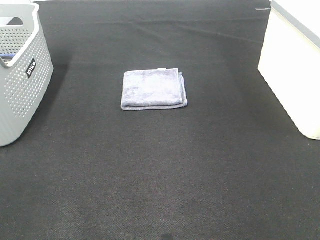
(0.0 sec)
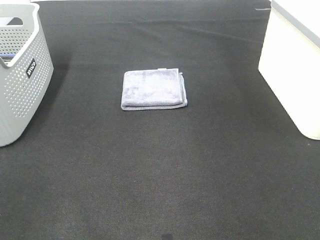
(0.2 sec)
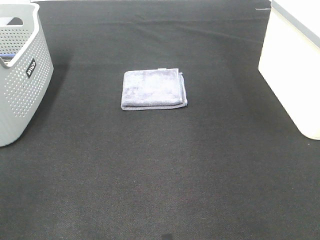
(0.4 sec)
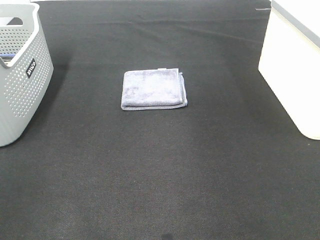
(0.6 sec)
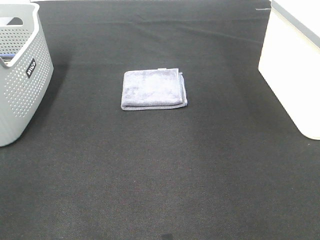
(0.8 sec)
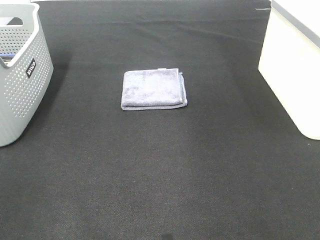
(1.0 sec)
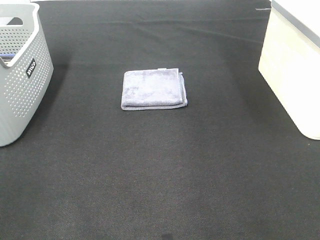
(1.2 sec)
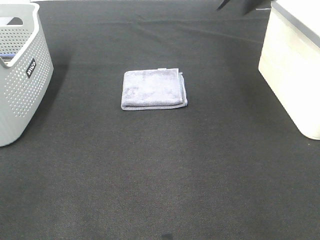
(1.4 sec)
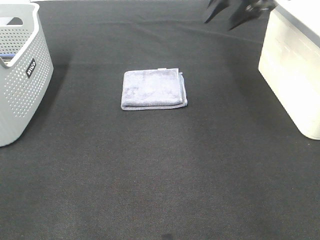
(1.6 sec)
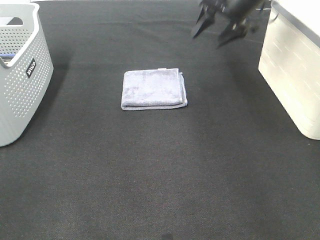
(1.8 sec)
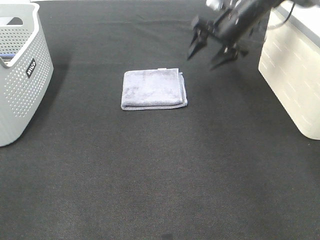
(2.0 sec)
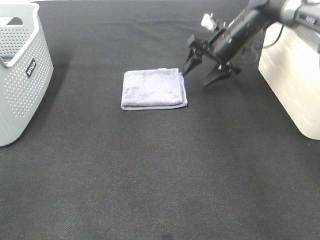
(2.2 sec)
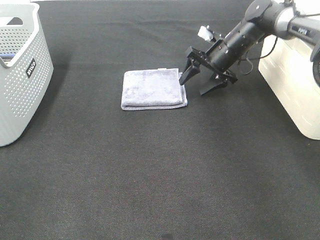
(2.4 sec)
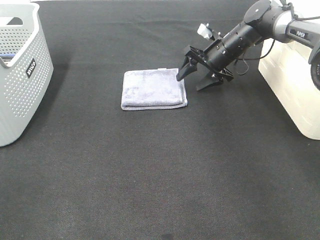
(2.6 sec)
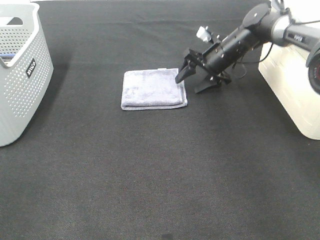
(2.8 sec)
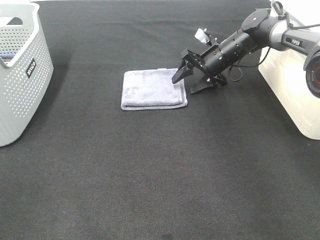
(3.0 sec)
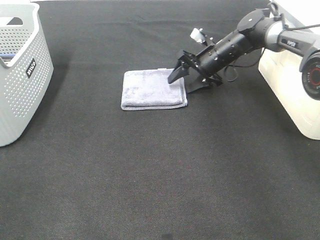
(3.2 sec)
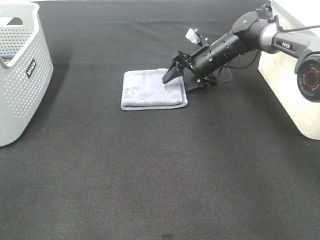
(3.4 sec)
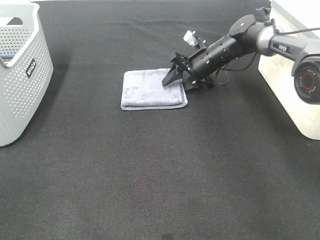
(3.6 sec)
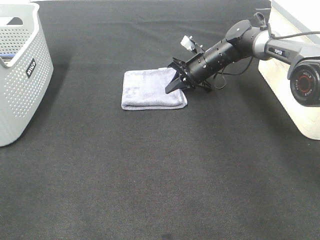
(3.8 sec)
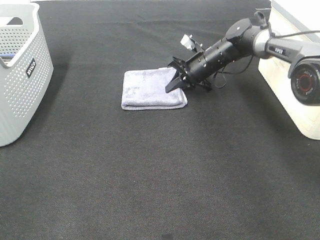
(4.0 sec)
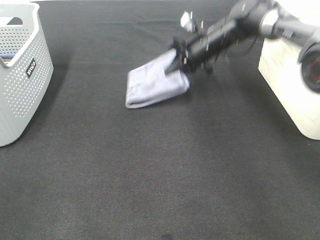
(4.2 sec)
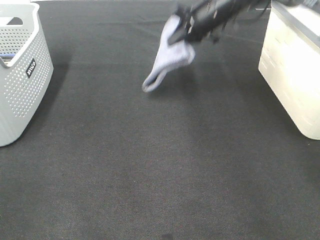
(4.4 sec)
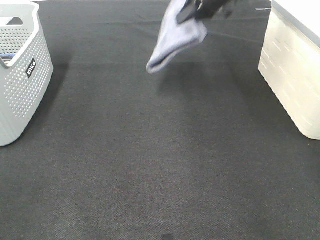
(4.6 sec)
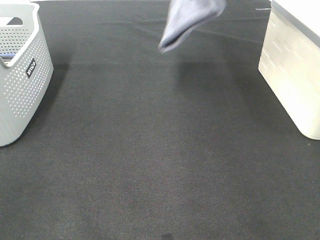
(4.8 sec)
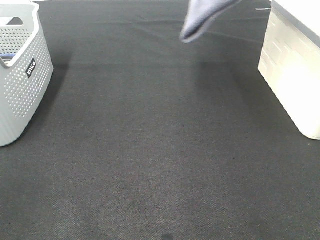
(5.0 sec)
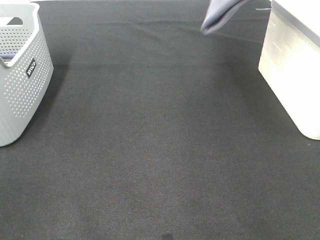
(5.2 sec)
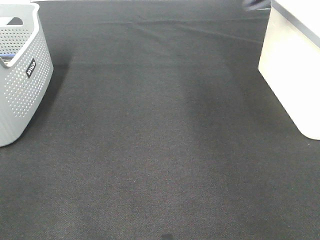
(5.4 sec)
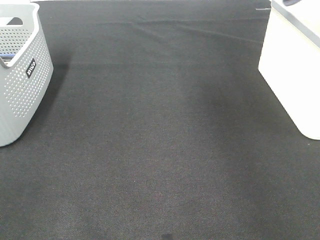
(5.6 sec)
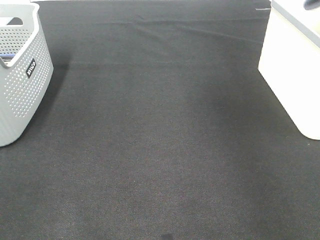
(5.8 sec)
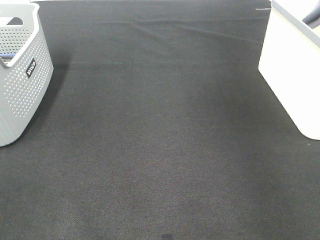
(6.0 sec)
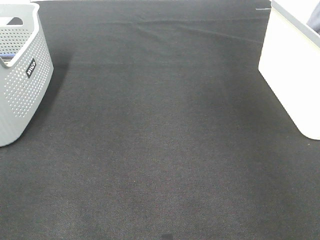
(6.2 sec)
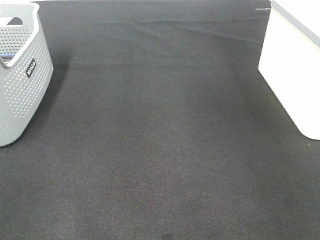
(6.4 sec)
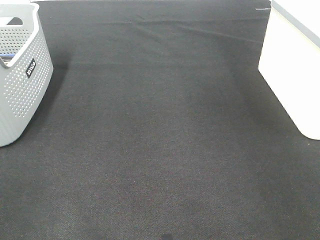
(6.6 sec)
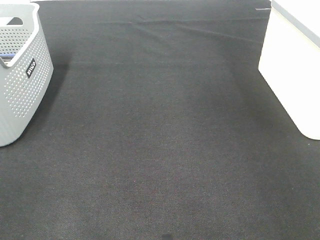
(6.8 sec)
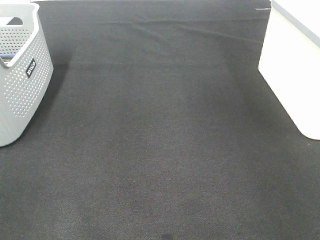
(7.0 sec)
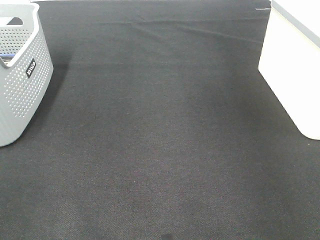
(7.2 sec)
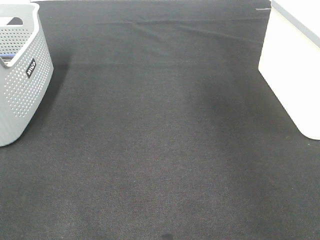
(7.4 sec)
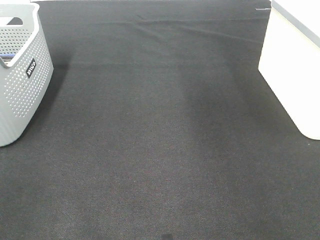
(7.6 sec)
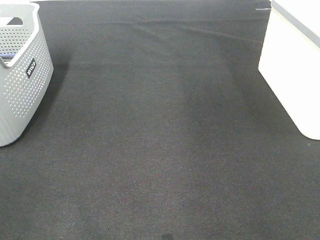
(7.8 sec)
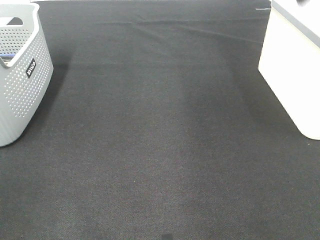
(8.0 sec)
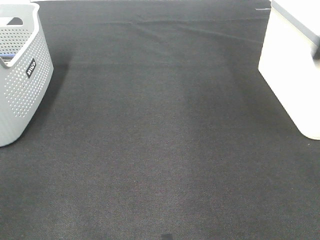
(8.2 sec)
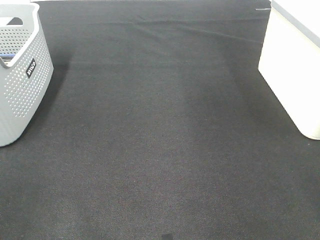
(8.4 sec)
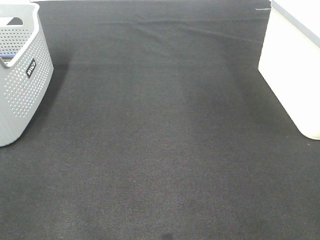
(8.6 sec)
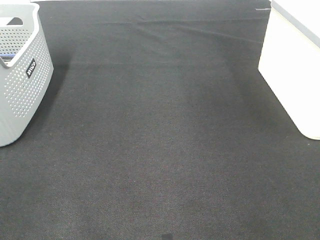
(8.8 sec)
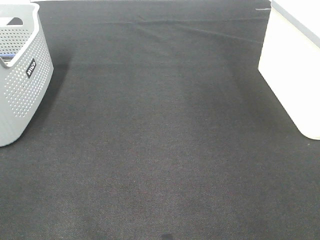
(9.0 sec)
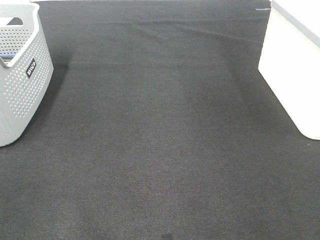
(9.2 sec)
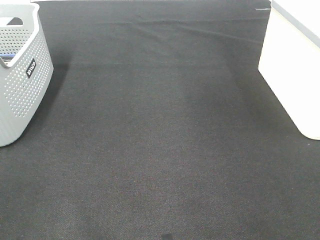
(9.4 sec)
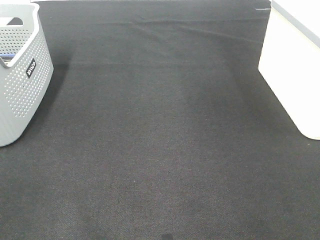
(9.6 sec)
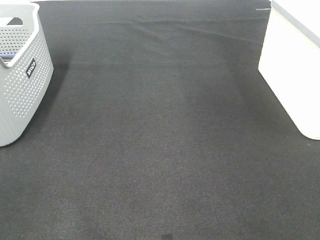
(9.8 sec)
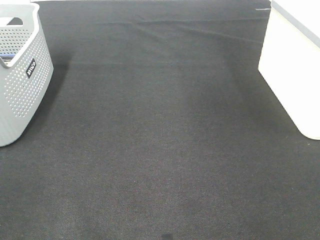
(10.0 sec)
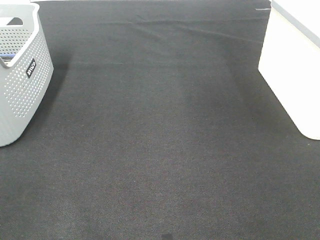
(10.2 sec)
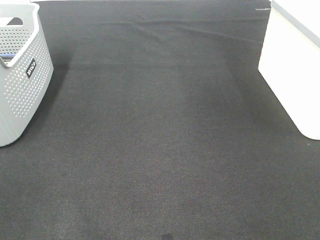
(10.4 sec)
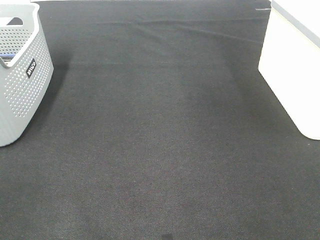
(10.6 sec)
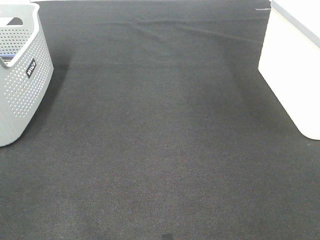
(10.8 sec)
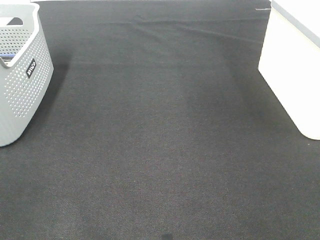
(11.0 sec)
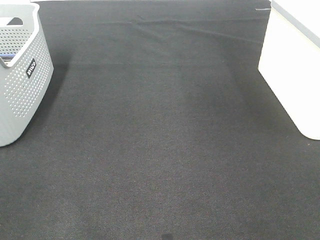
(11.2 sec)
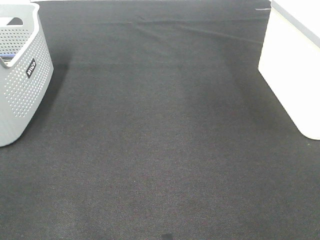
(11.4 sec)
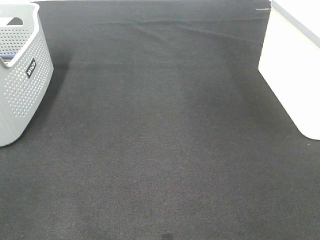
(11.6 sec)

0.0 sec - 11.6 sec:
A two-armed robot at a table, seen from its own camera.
Step, 0.0 sec - 4.0 sec: Right hand: grab the folded grey towel.
Step, 4.2 sec - 6.6 sec: Right hand: place the grey towel in right basket.
0.0 sec - 1.4 sec: The right gripper moves forward, about 35 cm.
1.4 sec - 2.8 sec: The right gripper travels downward by approximately 25 cm.
2.8 sec - 4.4 sec: The right gripper moves upward, approximately 15 cm, and closes.
4.4 sec - 5.8 sec: The right gripper goes some 30 cm to the right and upward.

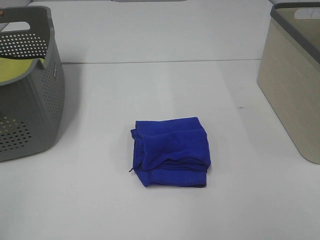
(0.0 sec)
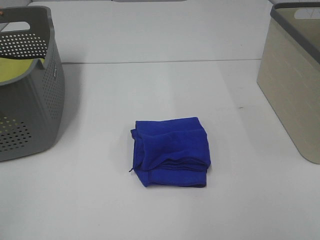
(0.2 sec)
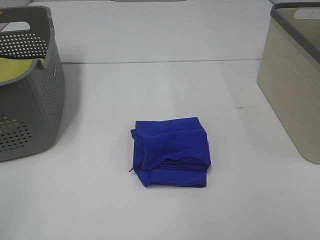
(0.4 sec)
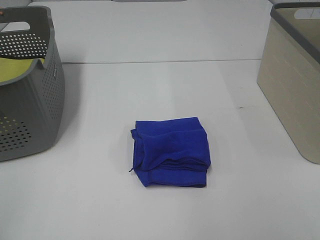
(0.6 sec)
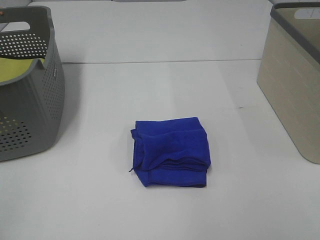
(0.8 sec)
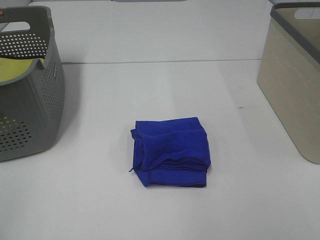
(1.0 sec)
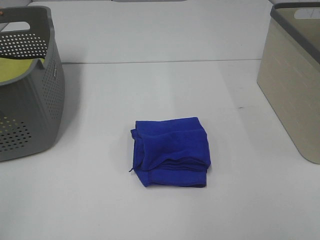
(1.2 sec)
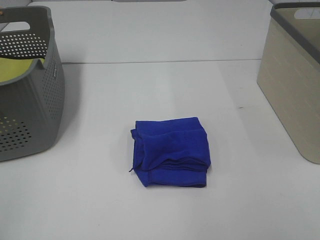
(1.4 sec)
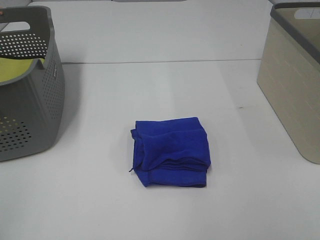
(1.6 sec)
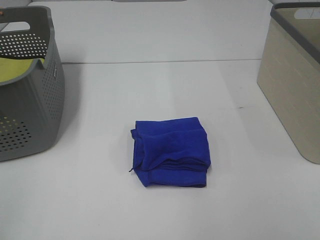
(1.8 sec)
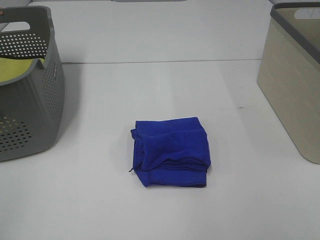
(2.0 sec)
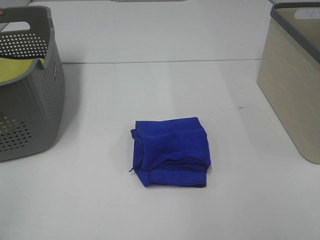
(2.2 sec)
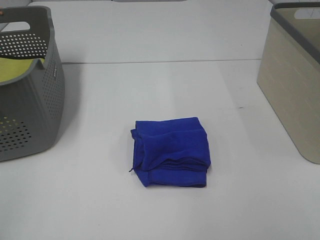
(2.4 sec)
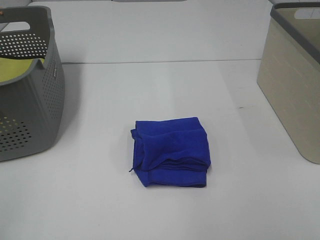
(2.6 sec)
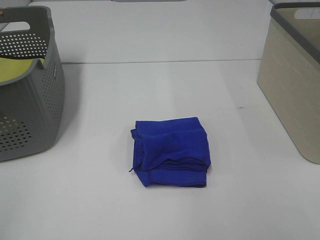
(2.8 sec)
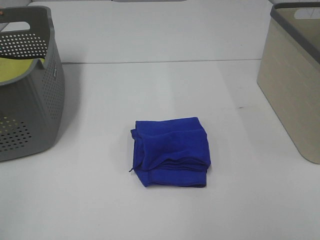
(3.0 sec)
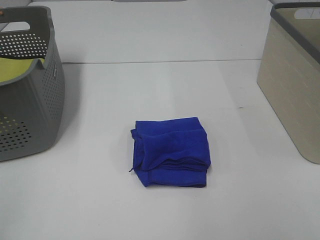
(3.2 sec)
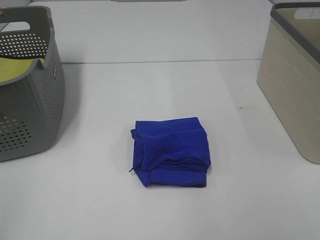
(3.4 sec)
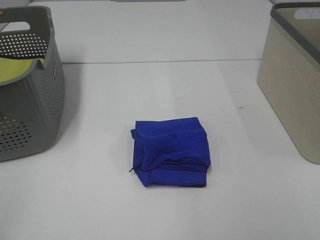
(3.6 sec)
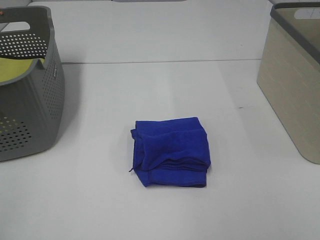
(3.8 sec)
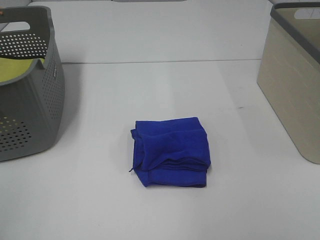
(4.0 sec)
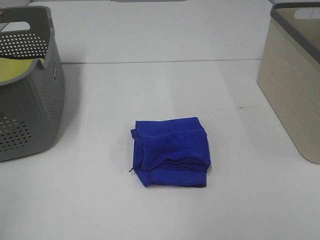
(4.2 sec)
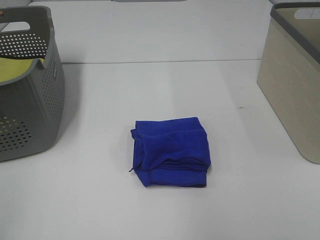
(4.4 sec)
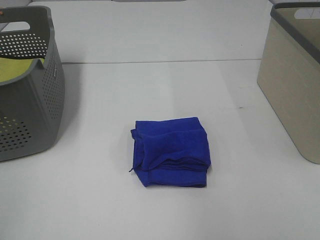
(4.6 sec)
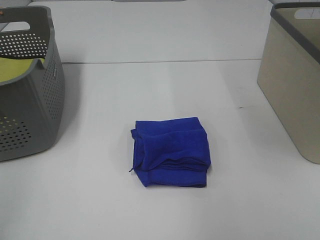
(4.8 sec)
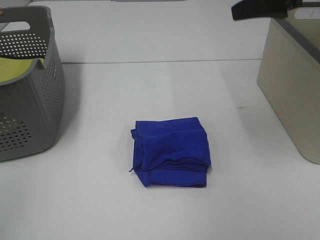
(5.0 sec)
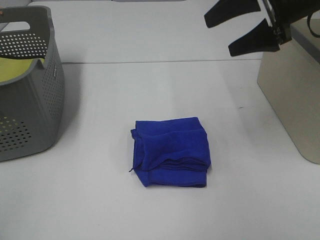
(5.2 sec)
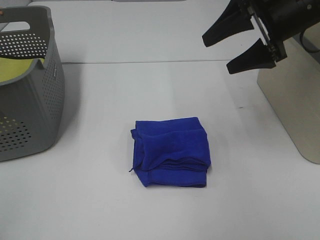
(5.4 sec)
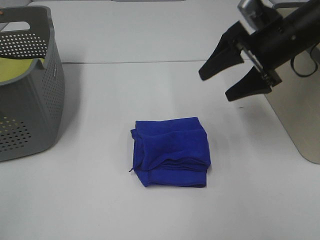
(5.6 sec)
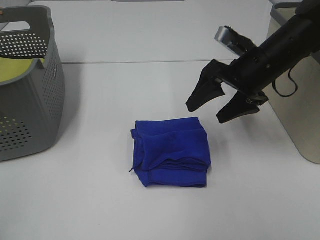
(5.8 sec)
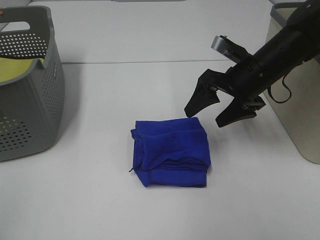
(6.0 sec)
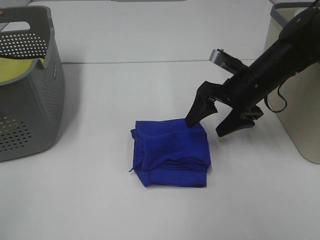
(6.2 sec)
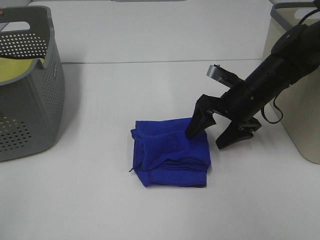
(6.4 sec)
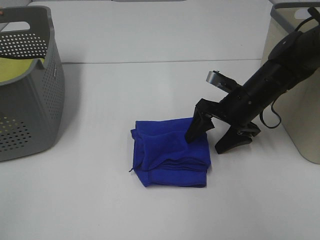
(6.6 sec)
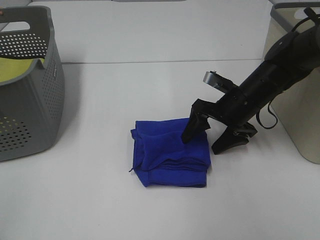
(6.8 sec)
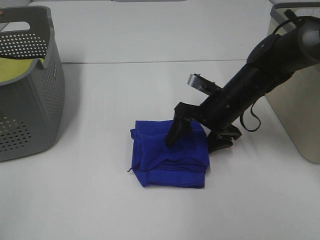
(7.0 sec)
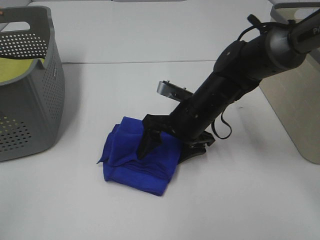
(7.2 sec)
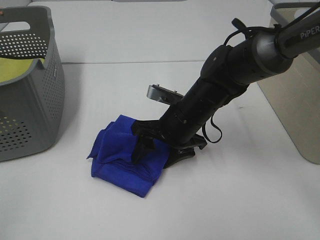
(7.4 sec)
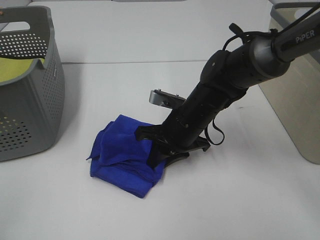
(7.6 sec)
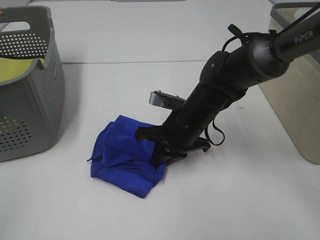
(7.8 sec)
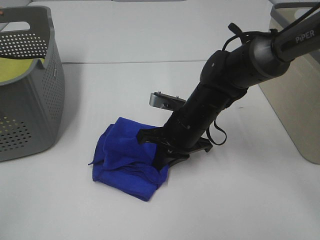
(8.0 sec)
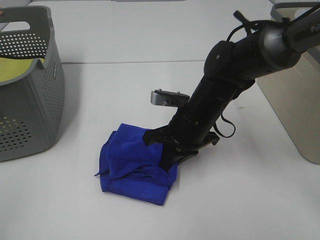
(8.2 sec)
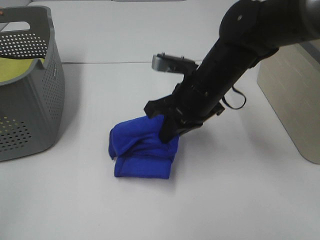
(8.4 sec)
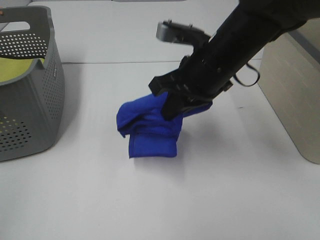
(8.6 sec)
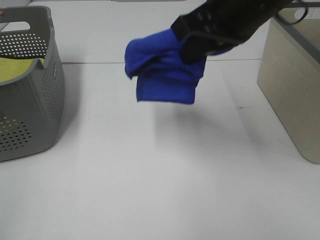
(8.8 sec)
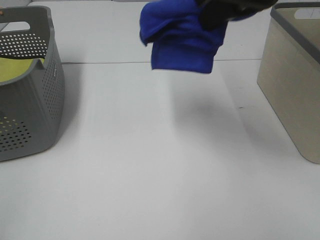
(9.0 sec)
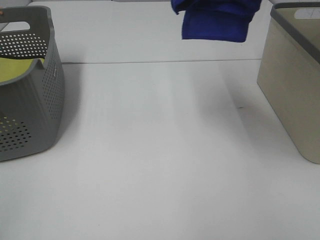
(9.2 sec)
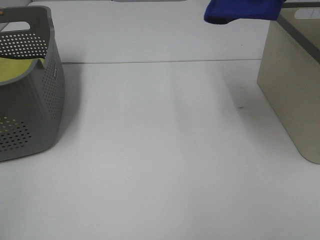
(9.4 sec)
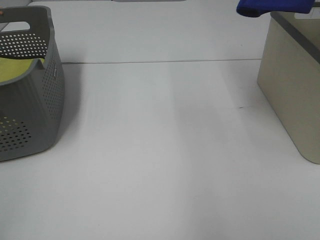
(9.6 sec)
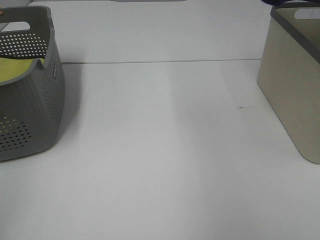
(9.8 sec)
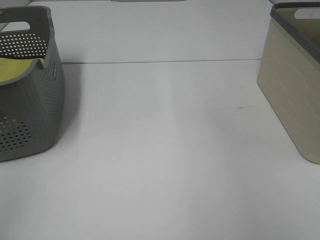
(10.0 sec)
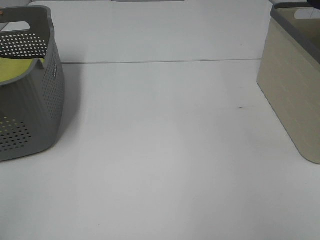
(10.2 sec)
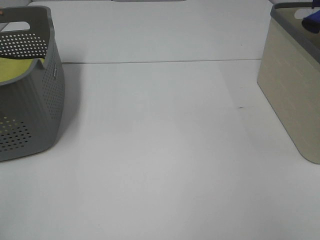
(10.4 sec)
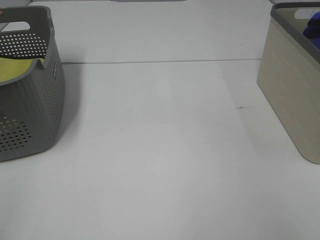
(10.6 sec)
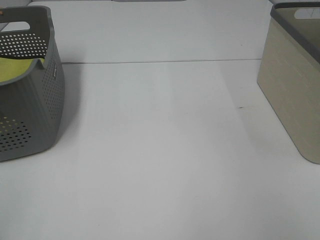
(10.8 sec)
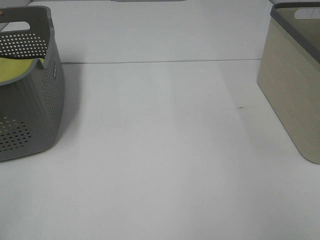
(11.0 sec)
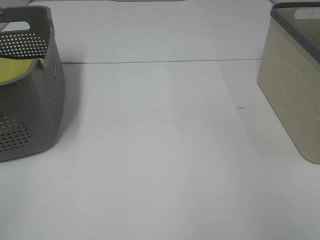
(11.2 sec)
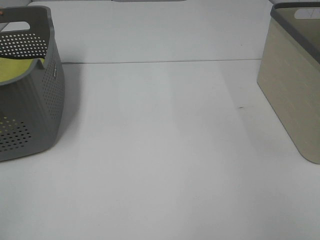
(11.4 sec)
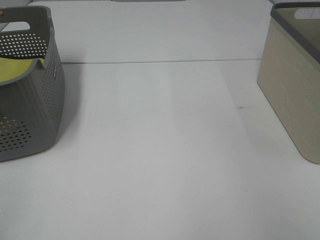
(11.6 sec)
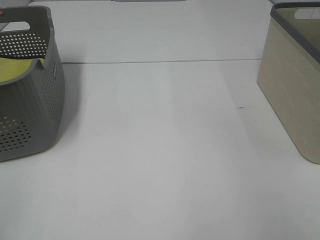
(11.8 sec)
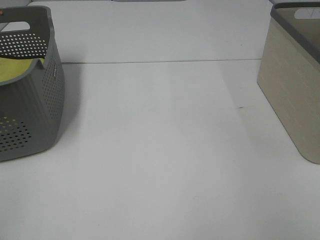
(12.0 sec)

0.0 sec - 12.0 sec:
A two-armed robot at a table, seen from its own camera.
Step, 0.0 sec - 7.6 sec: Right hand: grab the folded blue towel.
0.0 sec - 3.0 sec: Both grippers stay about where they are.
4.4 sec - 6.0 sec: The right gripper moves downward and forward, roughly 40 cm.
6.0 sec - 7.6 sec: The right gripper travels to the left and downward by some 15 cm, and closes.
7.6 sec - 9.0 sec: The right gripper goes approximately 30 cm upward.
9.0 sec - 10.4 sec: The right gripper moves to the right, roughly 30 cm.
